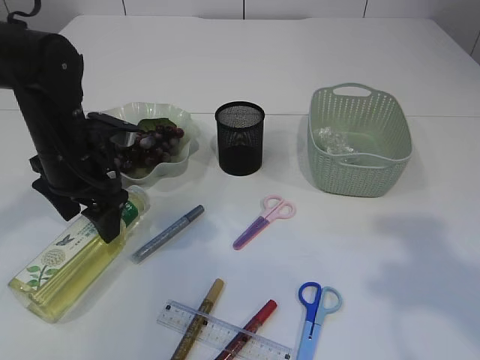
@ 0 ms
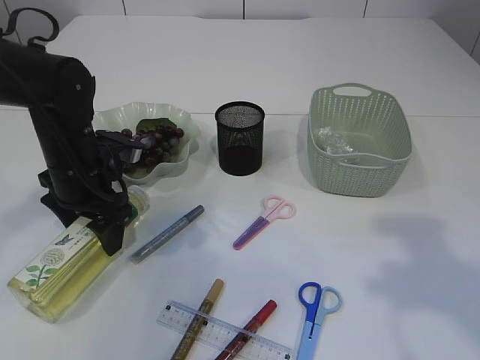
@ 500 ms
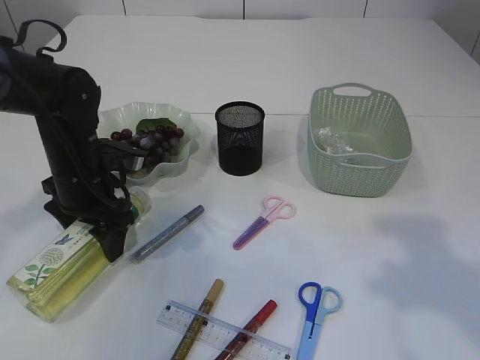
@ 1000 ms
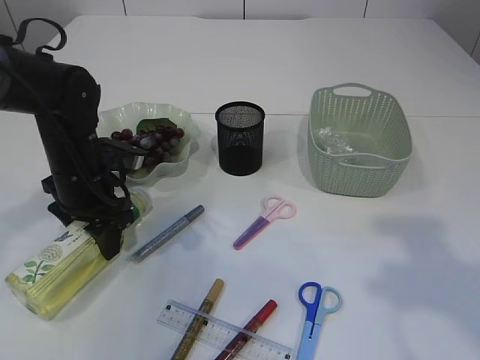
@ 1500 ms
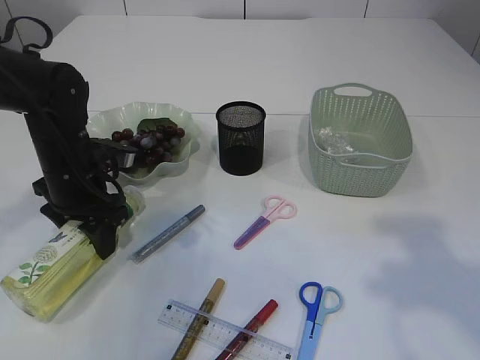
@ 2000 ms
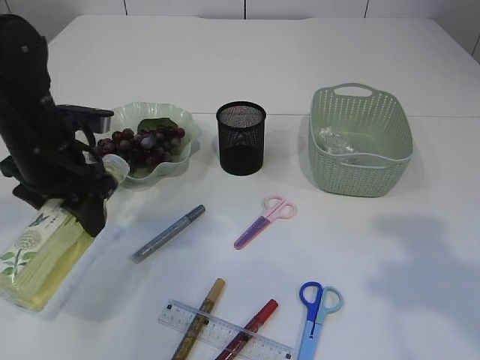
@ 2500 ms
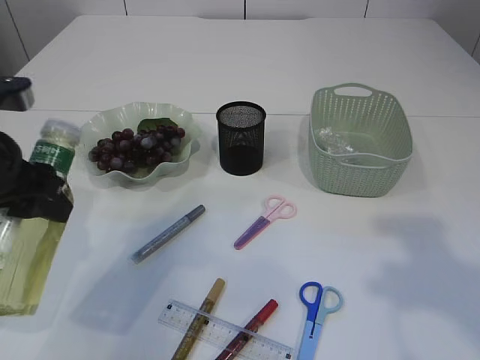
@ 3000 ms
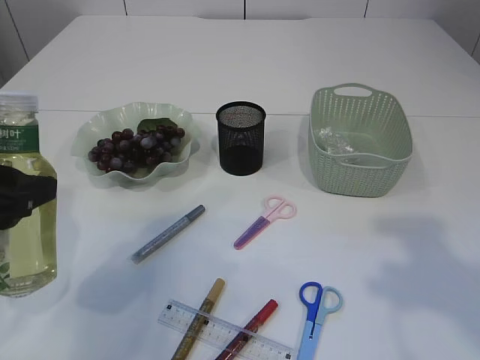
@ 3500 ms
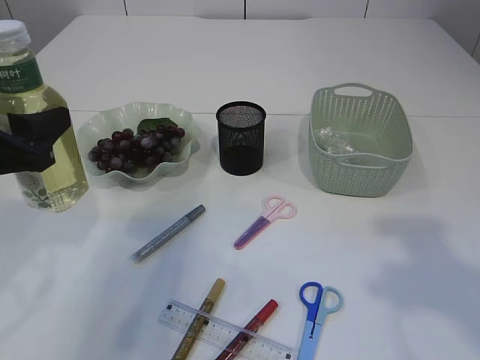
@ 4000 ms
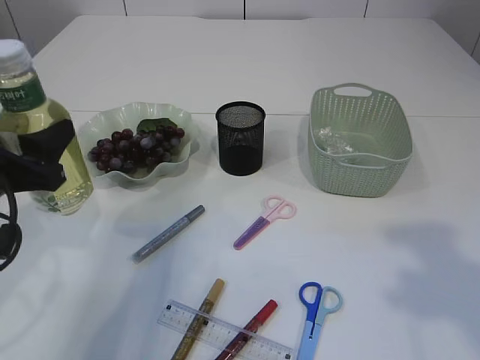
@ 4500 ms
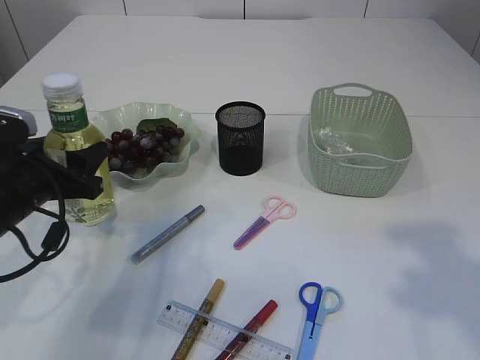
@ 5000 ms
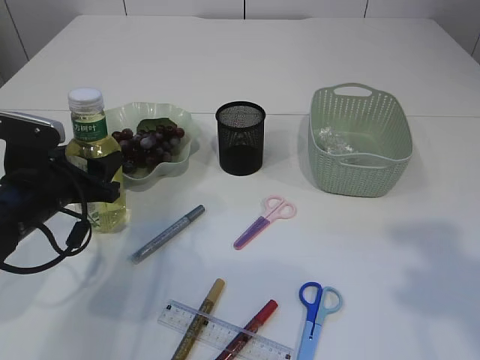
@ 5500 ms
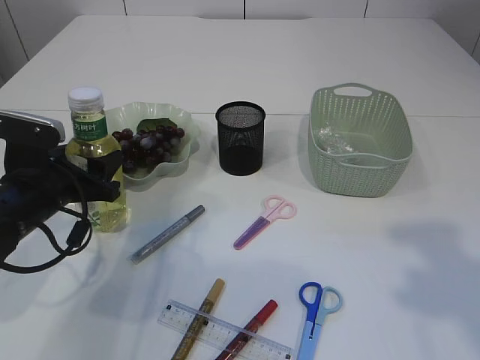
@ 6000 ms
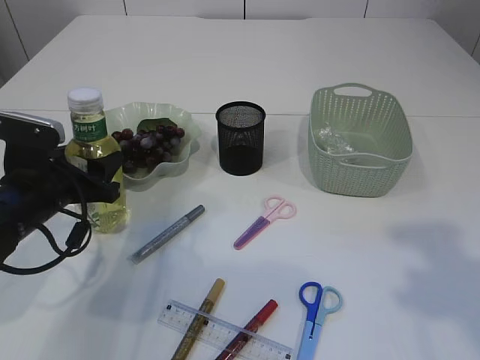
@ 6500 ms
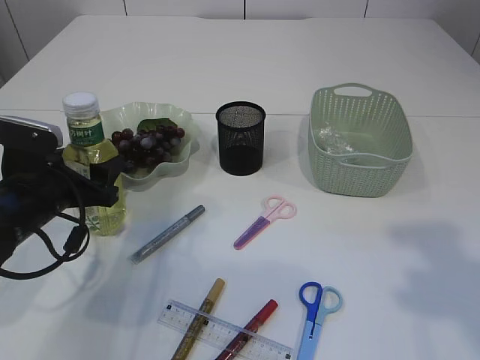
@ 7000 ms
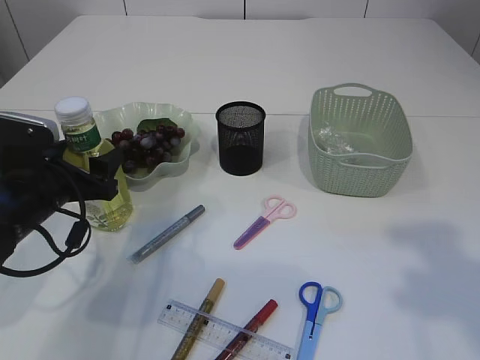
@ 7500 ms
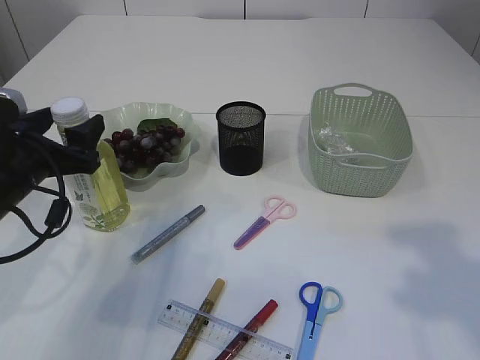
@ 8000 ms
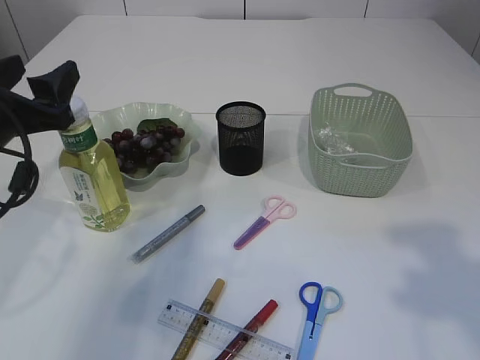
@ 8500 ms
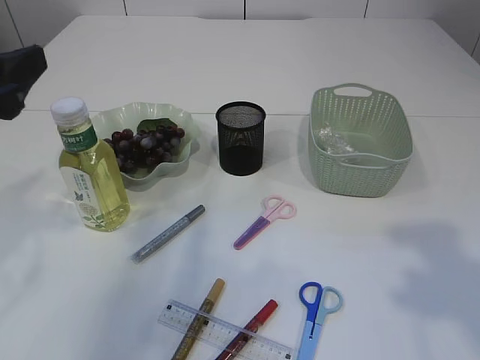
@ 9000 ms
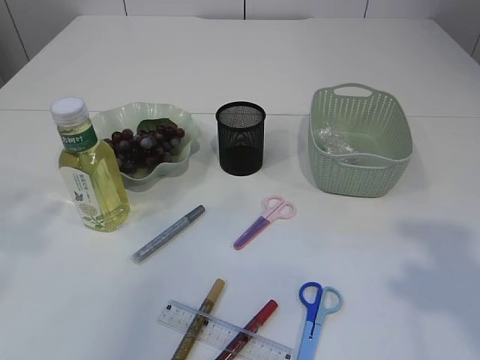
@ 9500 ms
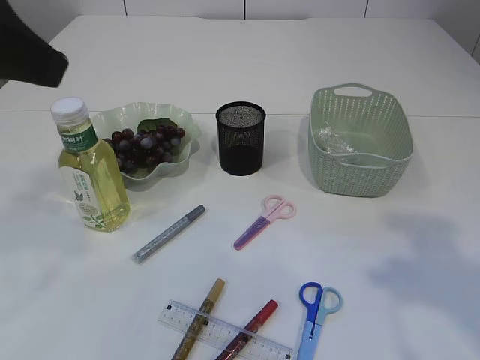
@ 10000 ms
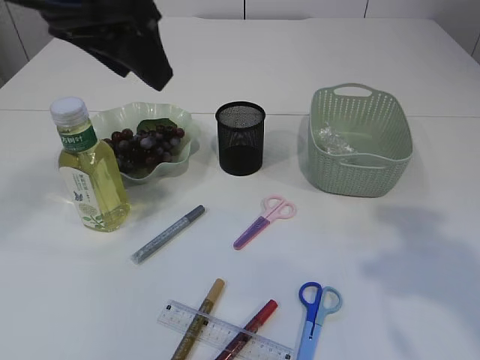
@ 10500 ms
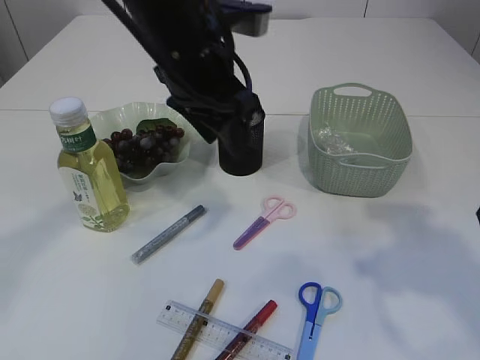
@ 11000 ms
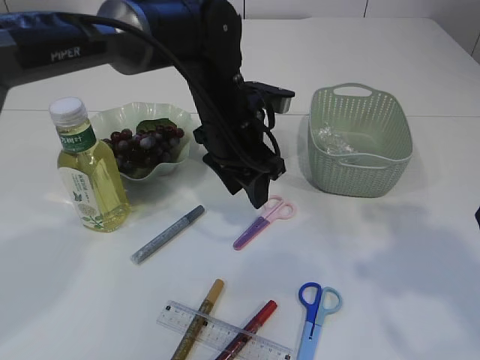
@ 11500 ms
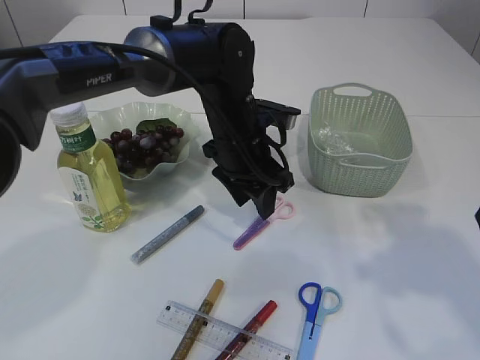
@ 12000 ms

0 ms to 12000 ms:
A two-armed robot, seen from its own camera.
Step, 0 ms to 3000 ms: Pick up the bottle with the left arm.
Step, 3500 ms to 8000 ms: Place the bottle.
0 ms to 2000 ms: The grippers move only a little.
2000 ms to 4000 ms: The left gripper moves backward and upward, approximately 15 cm.
4000 ms to 6000 ms: The left gripper is displaced downward and forward by roughly 15 cm.
6000 ms to 8000 ms: There are only small adjustments of the grippers.
8000 ms to 10000 ms: The left gripper shifts approximately 25 cm upward and backward.
10000 ms to 12000 ms: The right gripper ends up roughly 5 cm from where it was, while the left gripper travels downward, to the right and forward by about 35 cm.

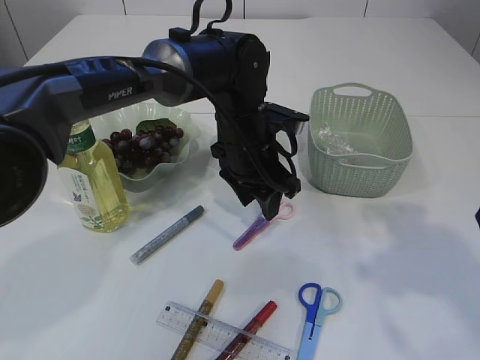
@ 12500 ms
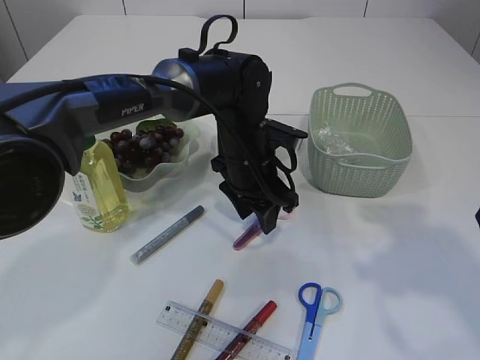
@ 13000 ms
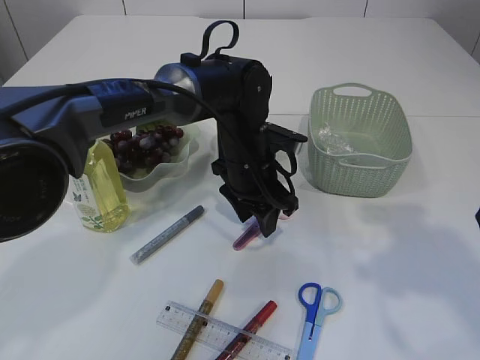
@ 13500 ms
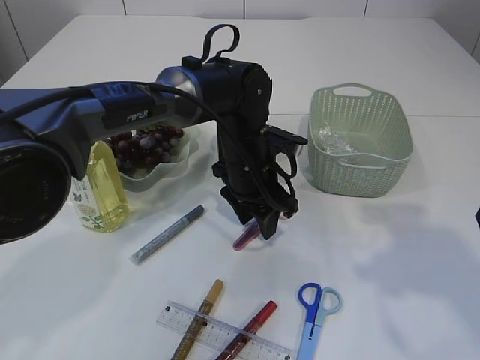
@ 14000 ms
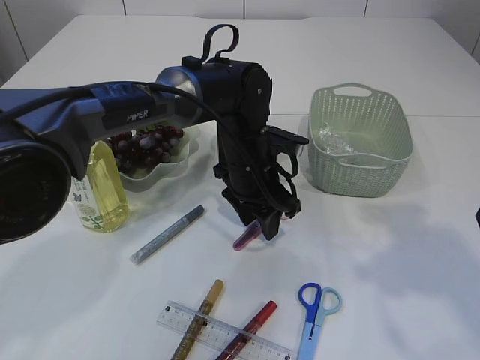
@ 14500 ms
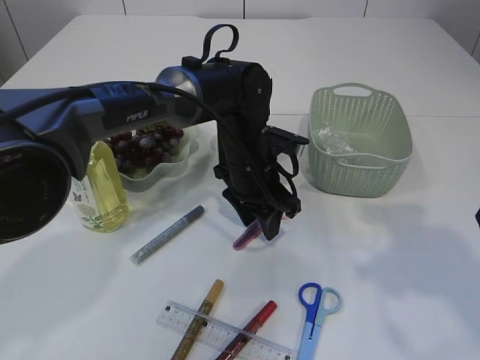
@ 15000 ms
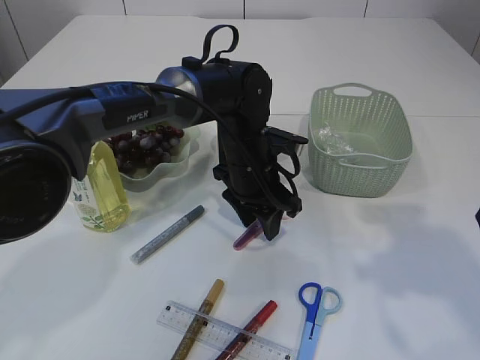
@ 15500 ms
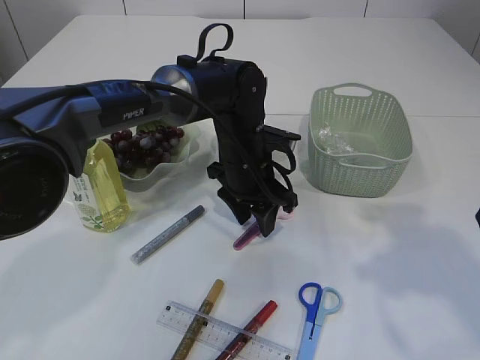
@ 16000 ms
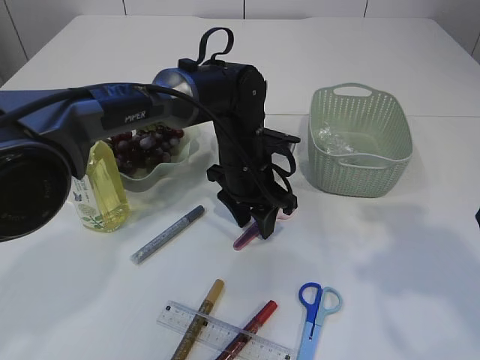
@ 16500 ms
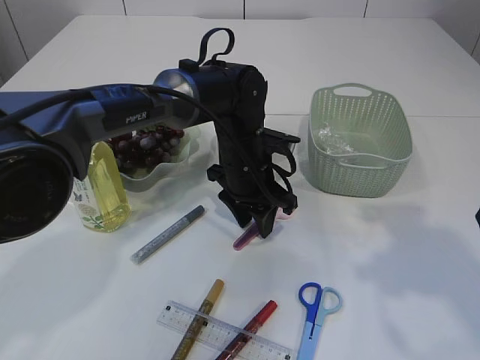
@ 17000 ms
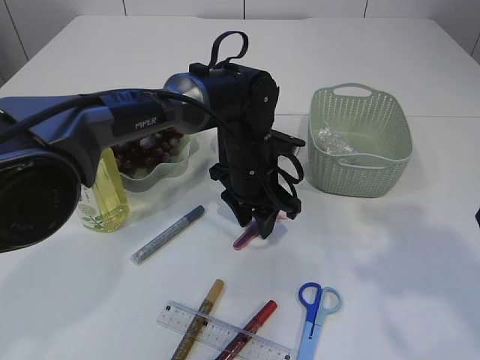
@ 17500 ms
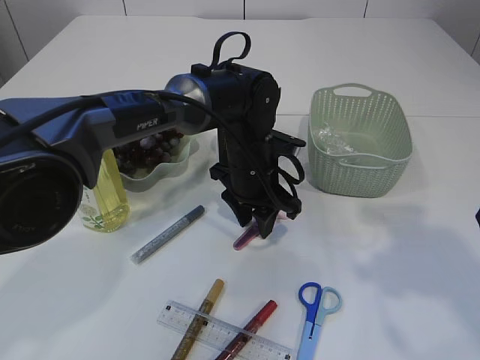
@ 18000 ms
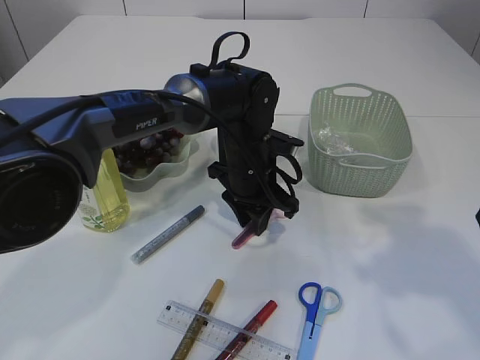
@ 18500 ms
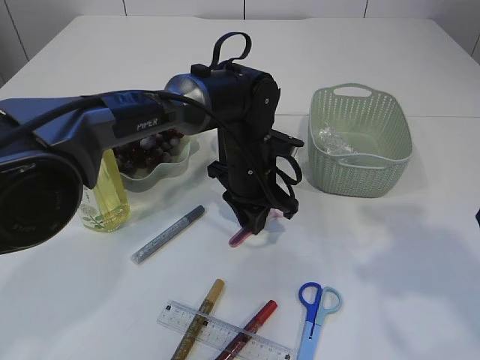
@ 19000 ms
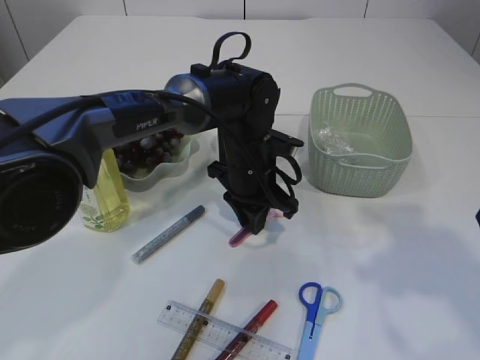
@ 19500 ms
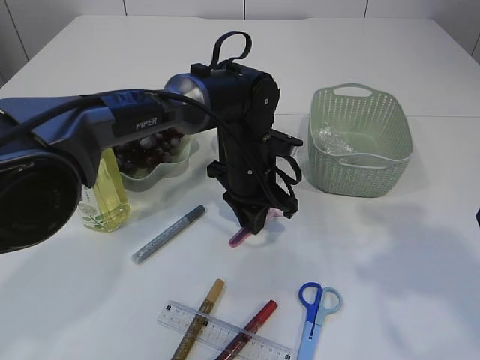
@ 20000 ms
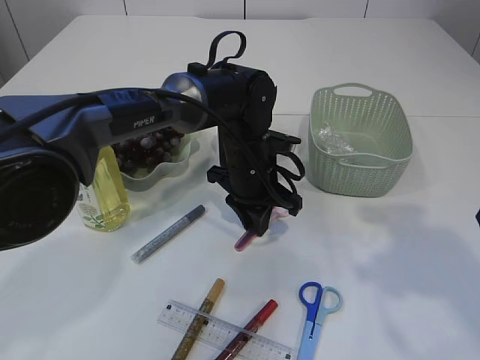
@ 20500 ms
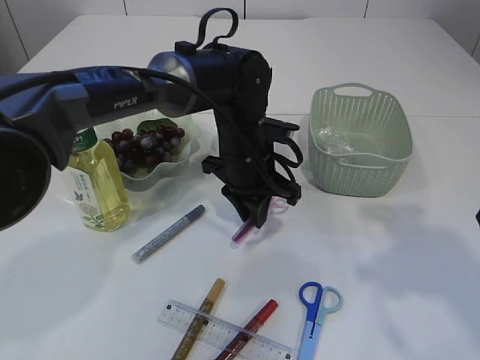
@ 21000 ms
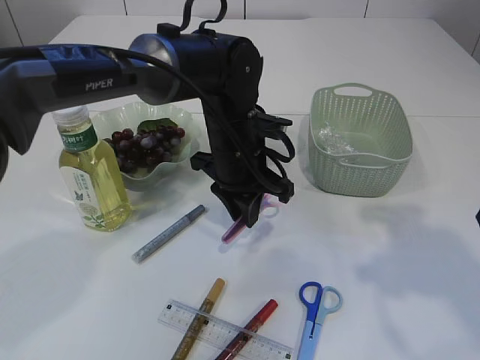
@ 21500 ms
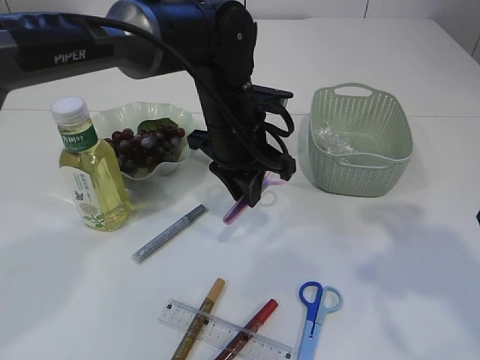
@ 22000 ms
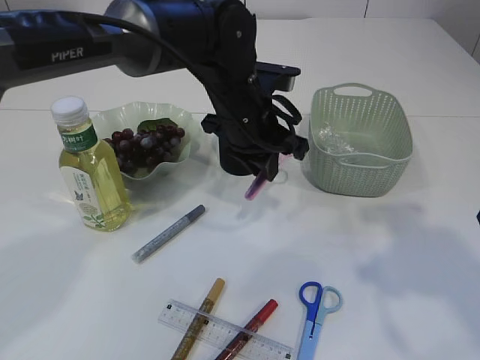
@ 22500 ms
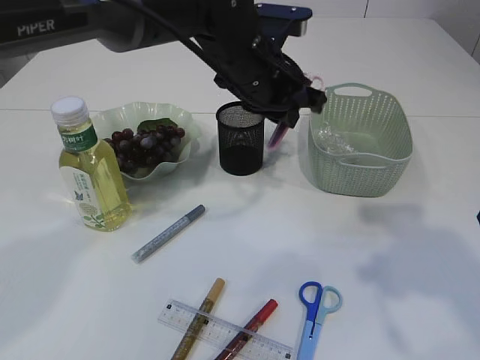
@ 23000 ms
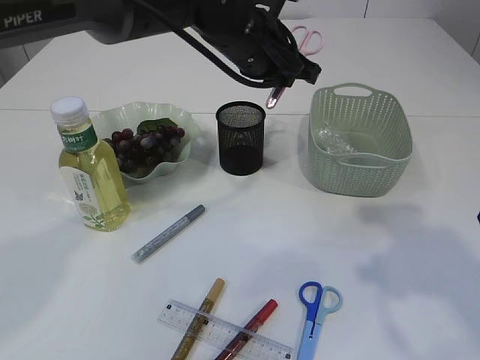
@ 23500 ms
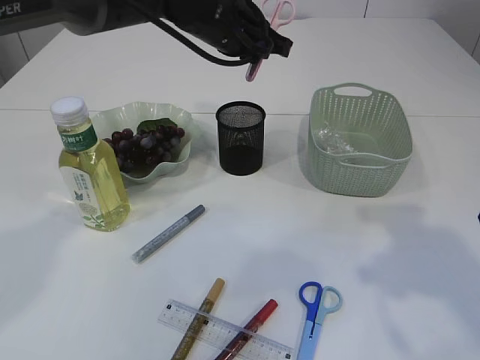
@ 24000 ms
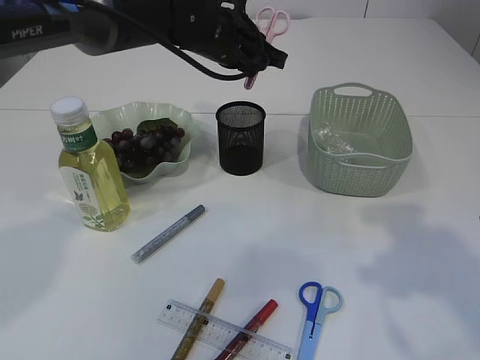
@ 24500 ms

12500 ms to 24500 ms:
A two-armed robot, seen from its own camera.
Step, 12500 ms to 22000 ms: pick up the pink scissors.
12500 ms to 20500 ms: The grippers stay close to where they were, moving slightly.
20500 ms to 22500 ms: The left gripper is displaced upward by some 10 cm.
22500 ms to 24500 ms: The left gripper shifts about 10 cm forward and upward.

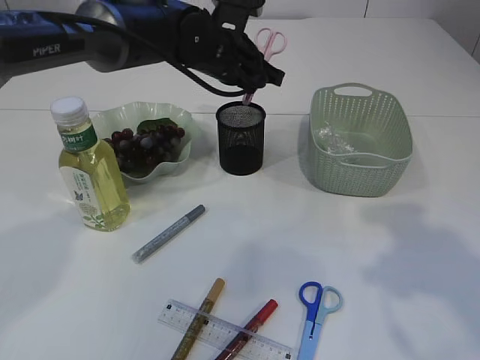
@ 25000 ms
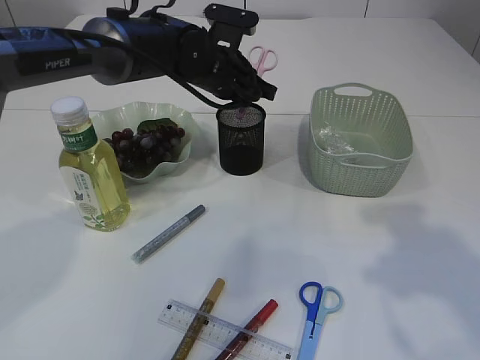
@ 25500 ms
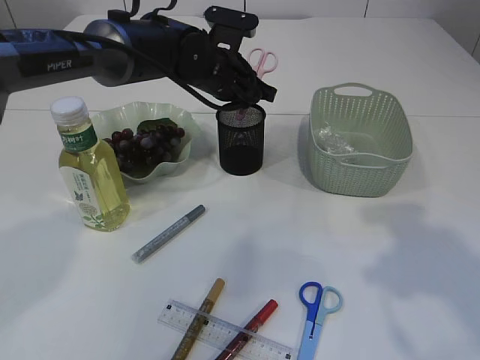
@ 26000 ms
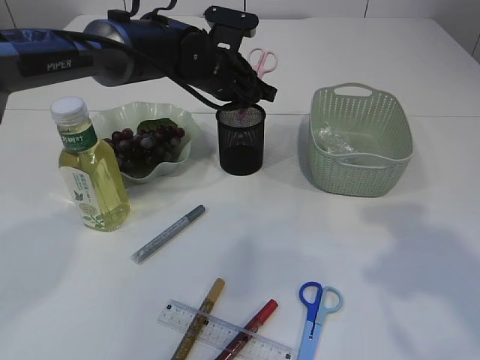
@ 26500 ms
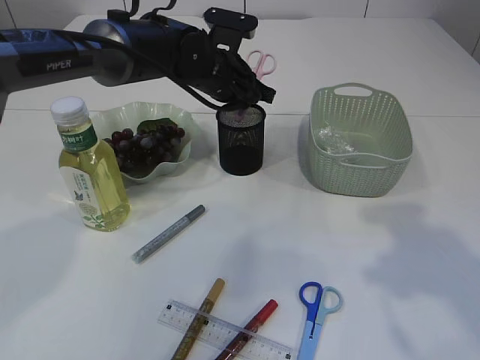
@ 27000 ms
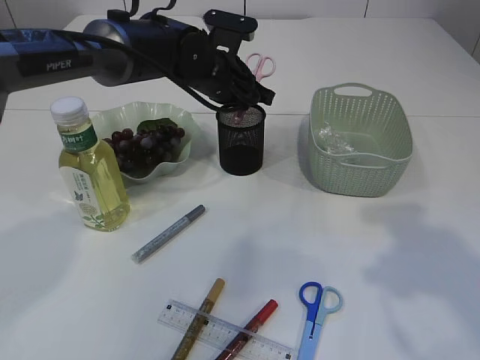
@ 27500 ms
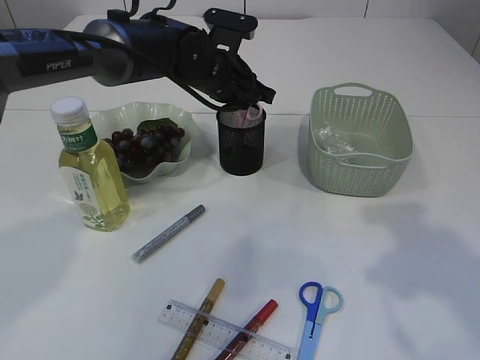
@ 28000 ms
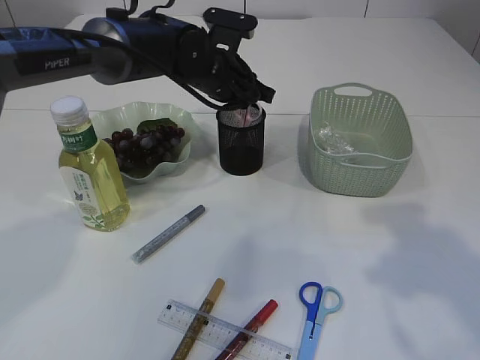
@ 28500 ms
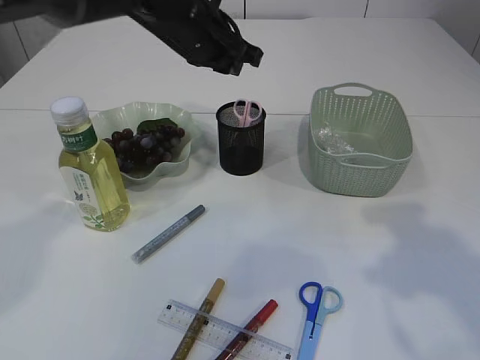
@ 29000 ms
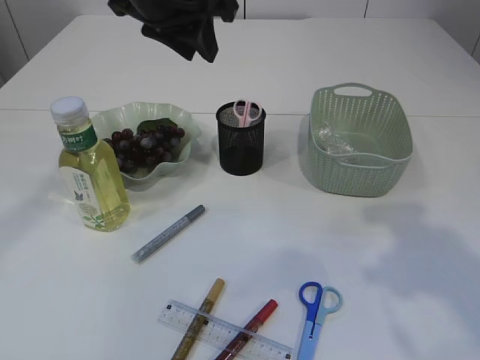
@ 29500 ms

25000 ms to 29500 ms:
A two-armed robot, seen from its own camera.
Step, 25000 ms to 28500 ms: Place the pink scissors into the pen holder.
25000 ms to 27000 ms: There are only small adjustments of the grippers.
27000 ms to 29500 ms: The left gripper heads upward and backward, covering some 15 cm.
